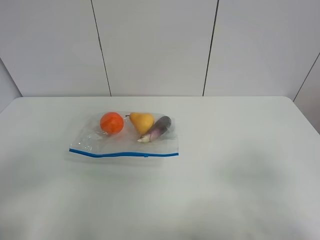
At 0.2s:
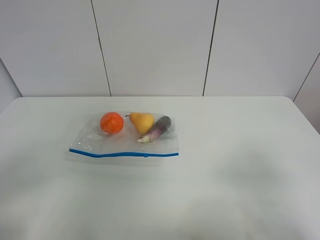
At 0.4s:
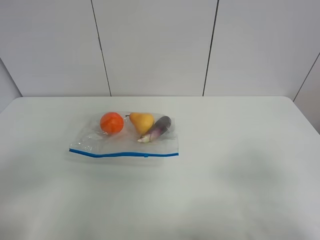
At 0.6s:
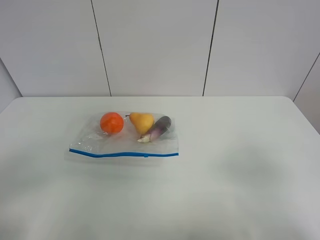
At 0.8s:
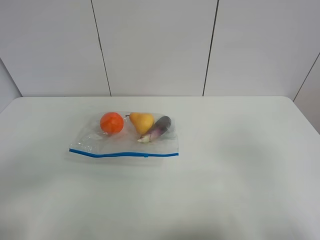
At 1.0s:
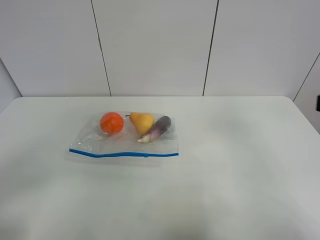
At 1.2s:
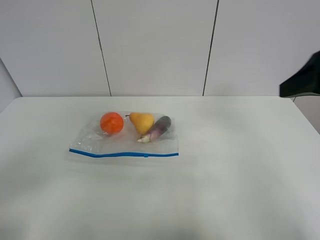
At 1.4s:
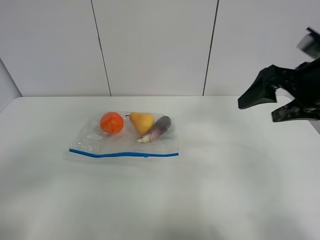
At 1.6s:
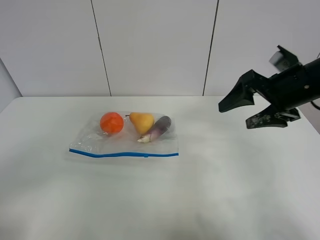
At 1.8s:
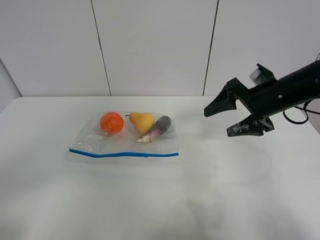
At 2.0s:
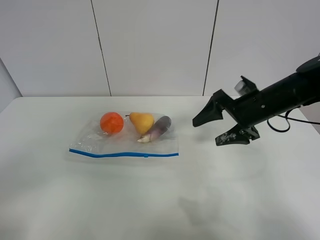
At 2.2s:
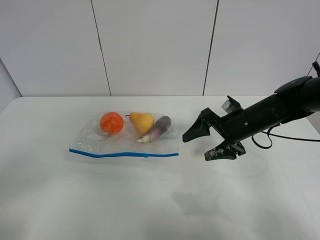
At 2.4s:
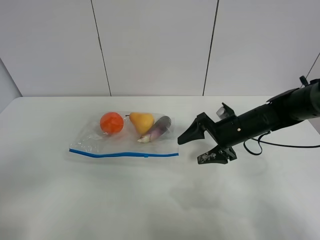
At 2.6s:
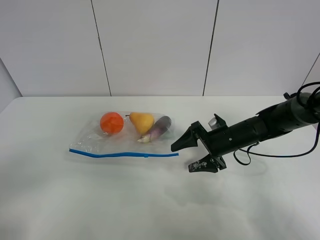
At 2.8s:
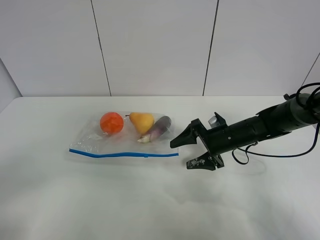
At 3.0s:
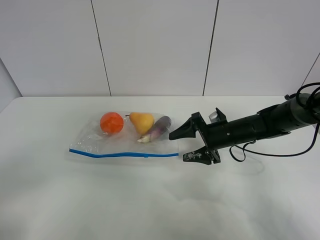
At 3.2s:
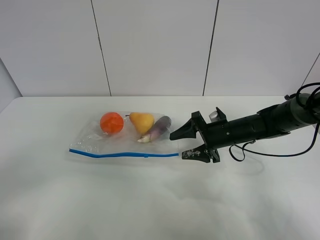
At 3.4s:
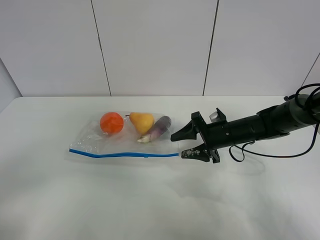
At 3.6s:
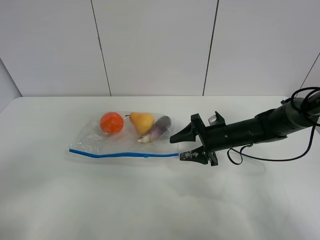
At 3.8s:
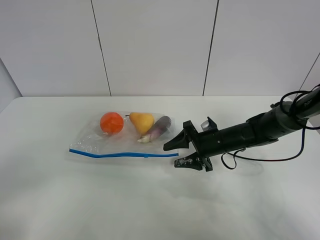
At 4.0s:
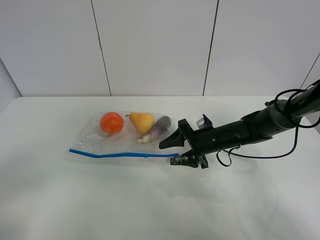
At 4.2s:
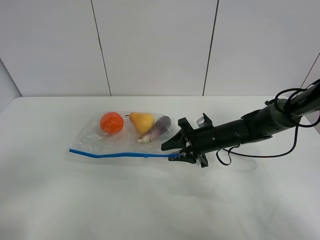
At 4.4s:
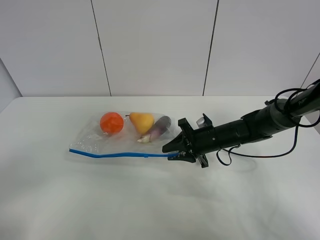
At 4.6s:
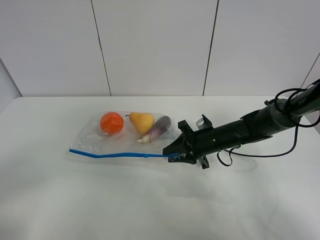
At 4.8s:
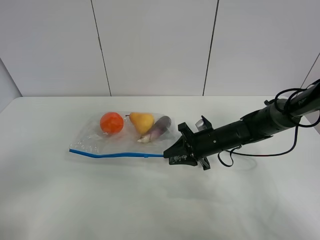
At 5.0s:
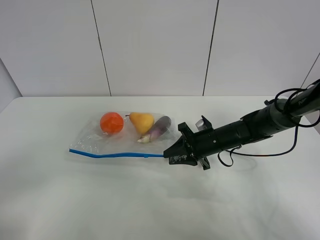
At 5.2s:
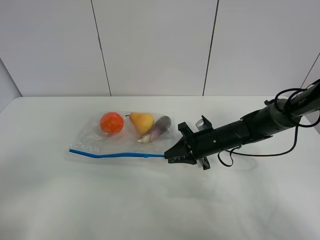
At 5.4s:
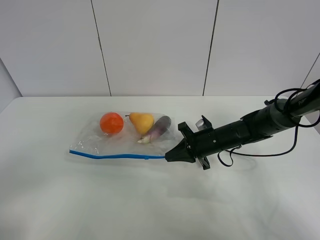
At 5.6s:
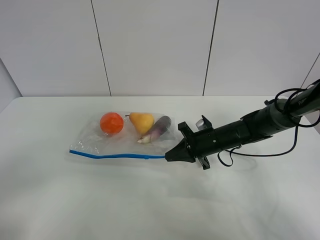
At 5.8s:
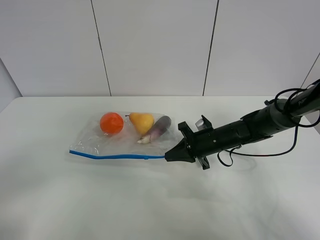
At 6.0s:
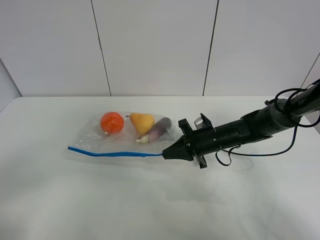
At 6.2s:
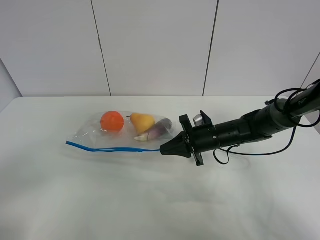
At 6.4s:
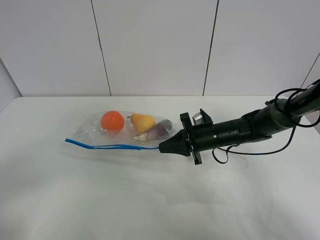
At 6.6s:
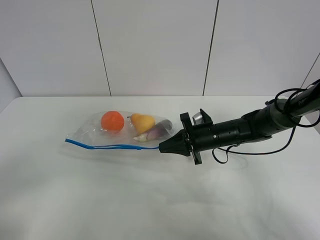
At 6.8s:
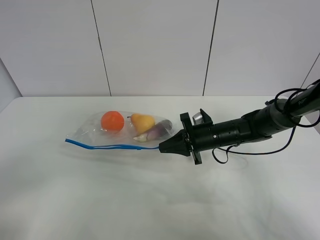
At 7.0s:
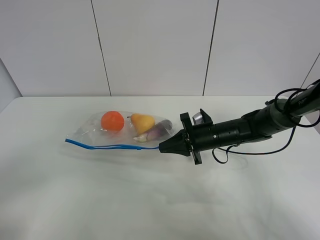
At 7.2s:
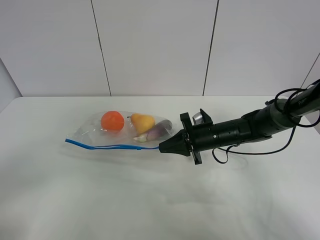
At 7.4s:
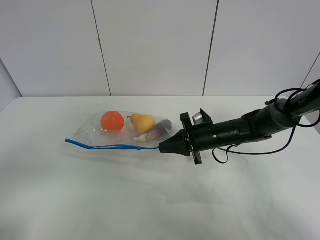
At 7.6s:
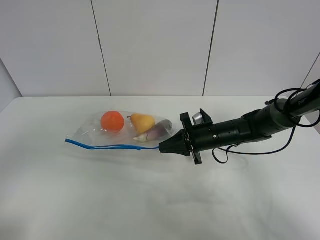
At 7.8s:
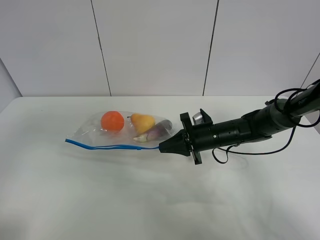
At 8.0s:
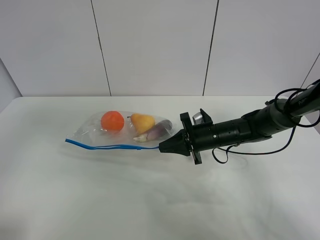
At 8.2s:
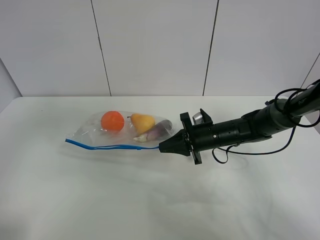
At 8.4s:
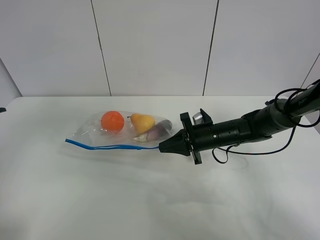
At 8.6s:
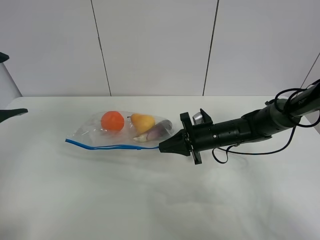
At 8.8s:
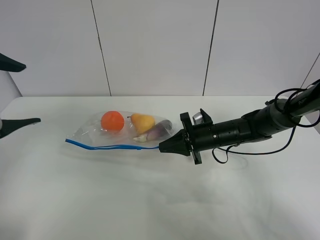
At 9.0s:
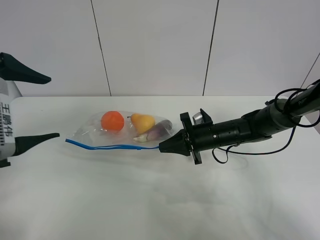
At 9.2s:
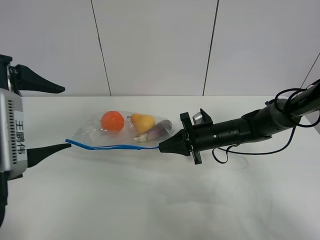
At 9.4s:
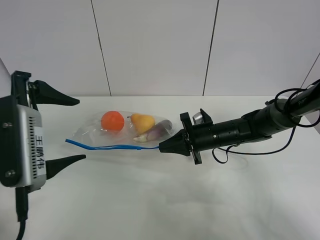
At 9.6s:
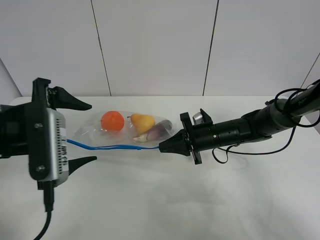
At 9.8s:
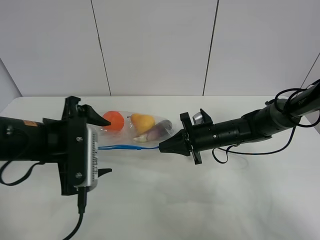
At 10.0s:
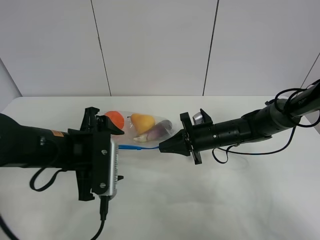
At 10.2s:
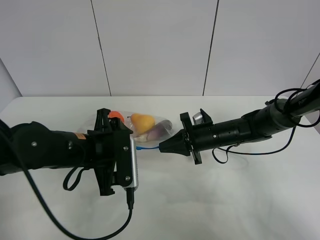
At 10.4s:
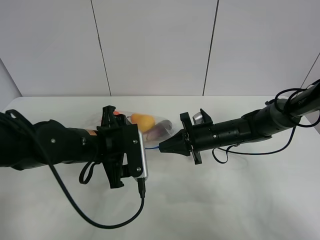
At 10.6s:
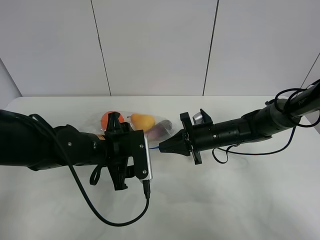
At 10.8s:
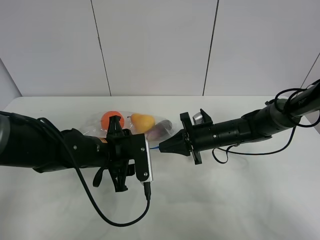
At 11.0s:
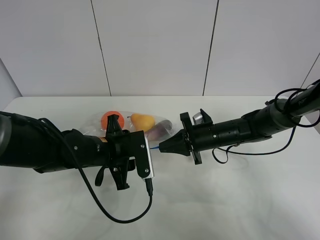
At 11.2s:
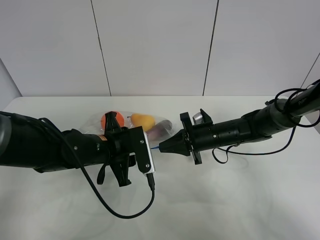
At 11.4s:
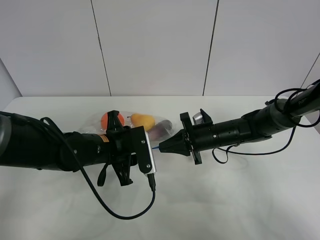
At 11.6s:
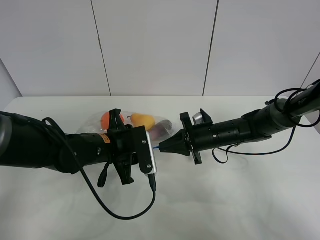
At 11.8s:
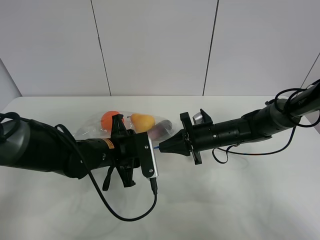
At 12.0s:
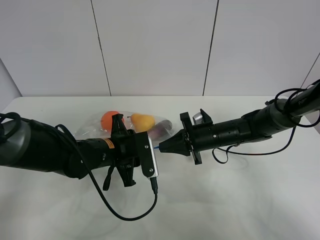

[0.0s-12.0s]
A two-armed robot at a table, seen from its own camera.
Step, 0.0s to 5.2s: Grasp the fruit bag with right gripper.
Step, 5.4s to 6.8s: Lift the fruit bag with your right gripper.
0.0s to 1.6s: The right gripper heads forward, covering approximately 30 cm.
1.6s to 3.0s: The right gripper is displaced downward by approximately 15 cm.
3.0s to 4.4s: The right gripper closes its fingers.
4.4s to 6.0s: The right gripper closes up.
6.0s to 7.6s: The left gripper goes about 10 cm upward and forward.
7.6s to 9.0s: The left gripper moves forward and to the right, some 15 cm.
9.0s to 10.4s: The left gripper travels downward, to the right and forward by about 20 cm.
10.4s to 12.0s: The left gripper closes up.

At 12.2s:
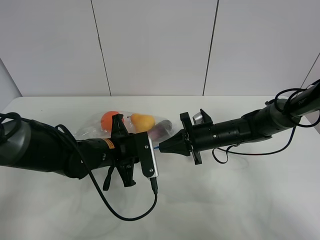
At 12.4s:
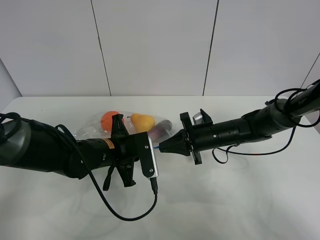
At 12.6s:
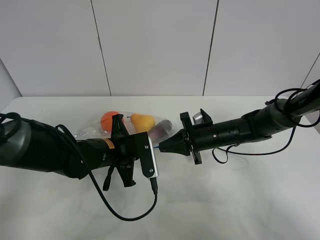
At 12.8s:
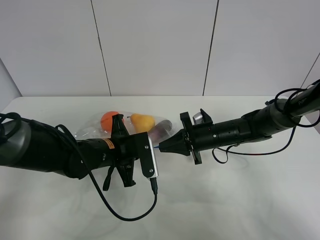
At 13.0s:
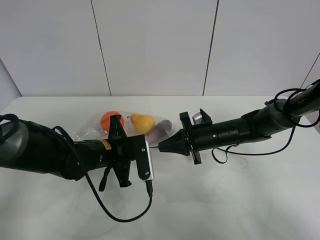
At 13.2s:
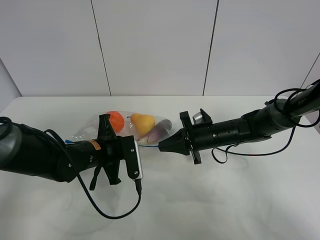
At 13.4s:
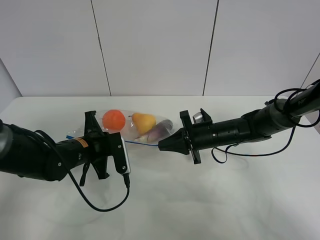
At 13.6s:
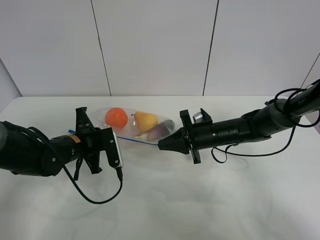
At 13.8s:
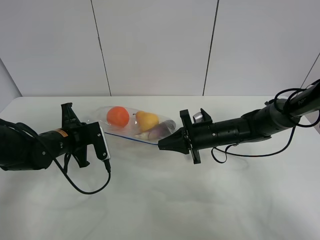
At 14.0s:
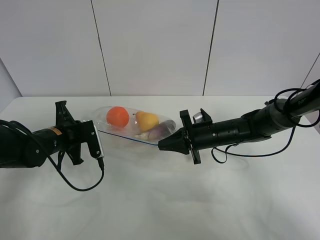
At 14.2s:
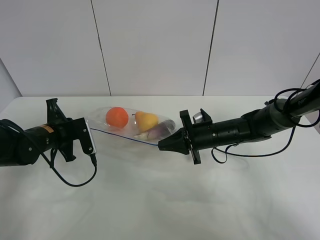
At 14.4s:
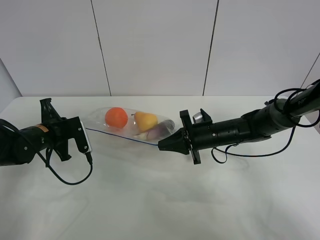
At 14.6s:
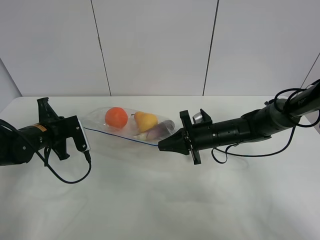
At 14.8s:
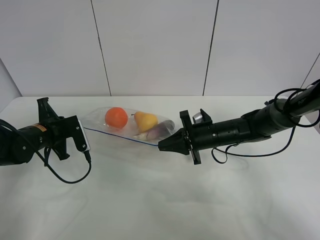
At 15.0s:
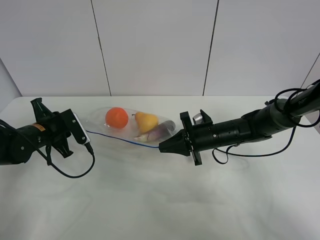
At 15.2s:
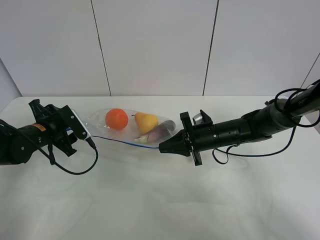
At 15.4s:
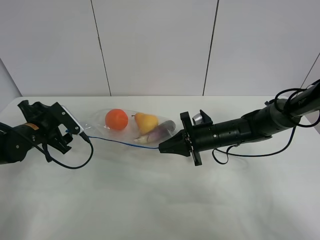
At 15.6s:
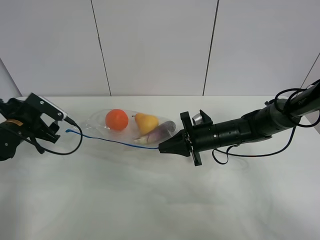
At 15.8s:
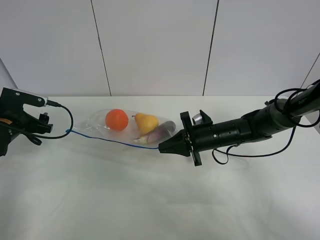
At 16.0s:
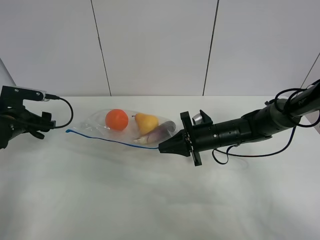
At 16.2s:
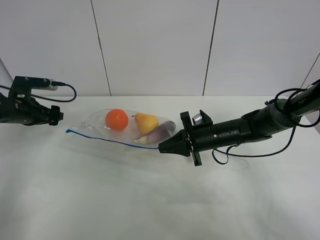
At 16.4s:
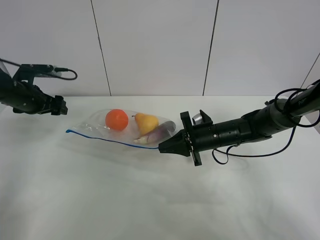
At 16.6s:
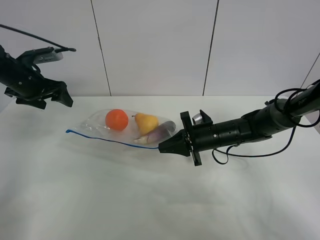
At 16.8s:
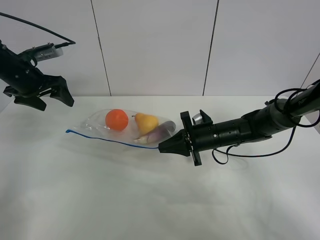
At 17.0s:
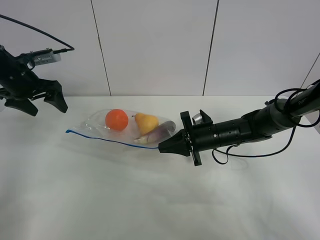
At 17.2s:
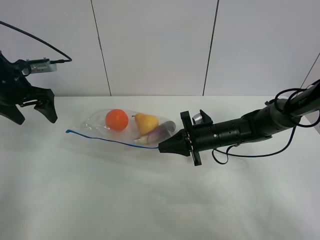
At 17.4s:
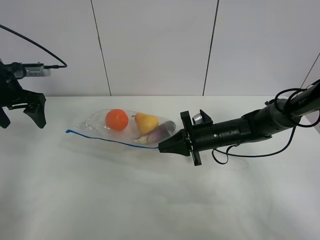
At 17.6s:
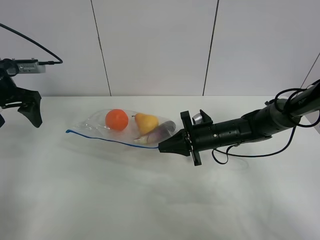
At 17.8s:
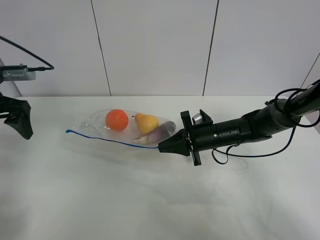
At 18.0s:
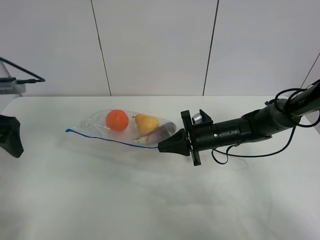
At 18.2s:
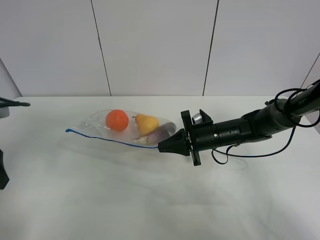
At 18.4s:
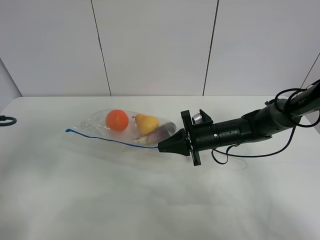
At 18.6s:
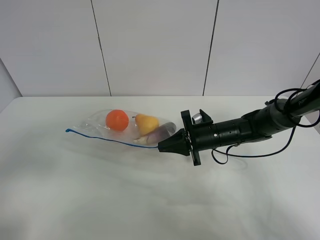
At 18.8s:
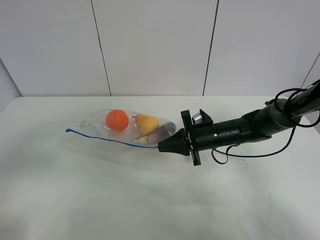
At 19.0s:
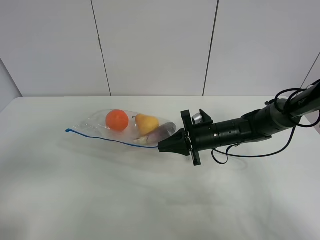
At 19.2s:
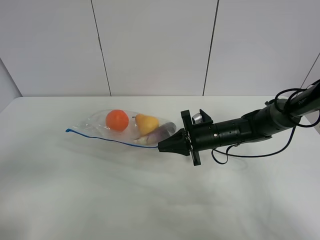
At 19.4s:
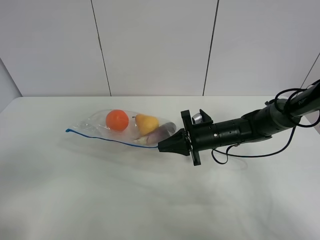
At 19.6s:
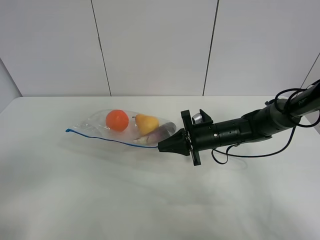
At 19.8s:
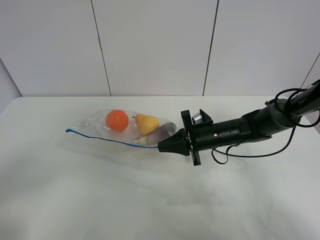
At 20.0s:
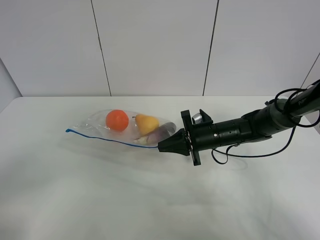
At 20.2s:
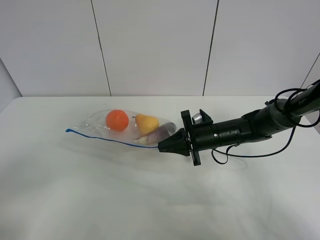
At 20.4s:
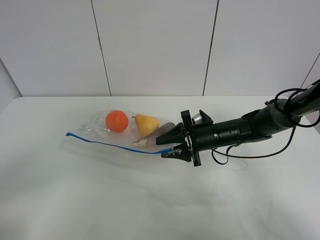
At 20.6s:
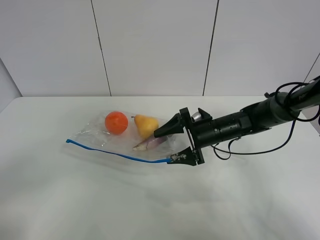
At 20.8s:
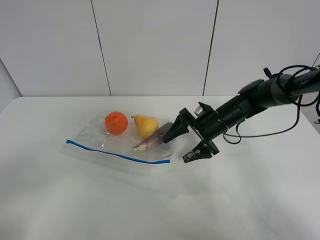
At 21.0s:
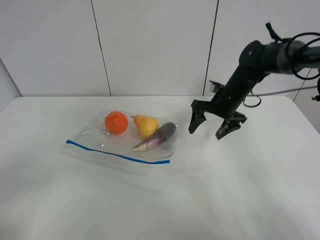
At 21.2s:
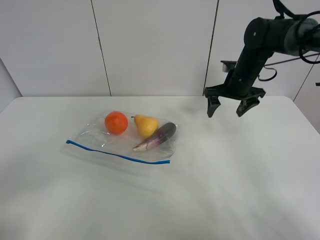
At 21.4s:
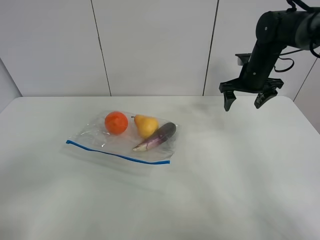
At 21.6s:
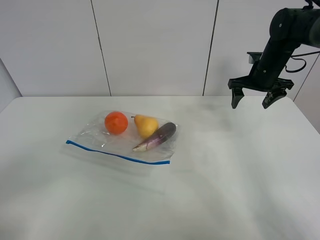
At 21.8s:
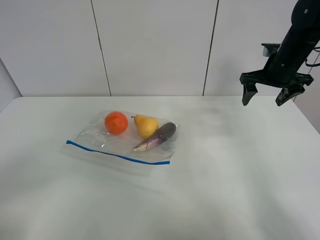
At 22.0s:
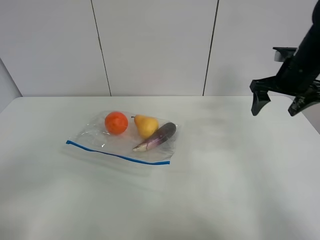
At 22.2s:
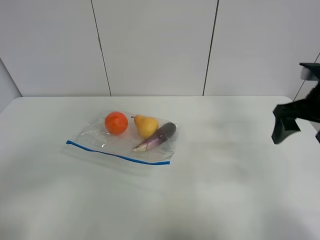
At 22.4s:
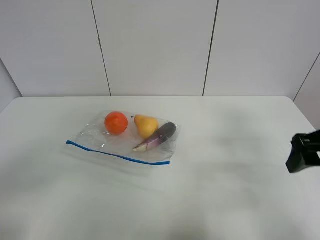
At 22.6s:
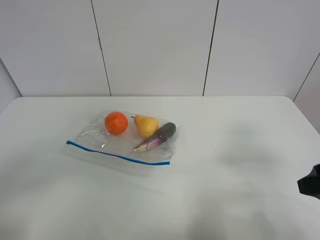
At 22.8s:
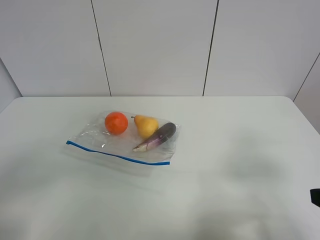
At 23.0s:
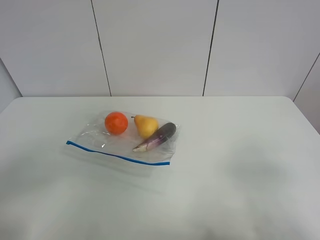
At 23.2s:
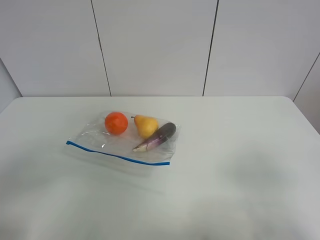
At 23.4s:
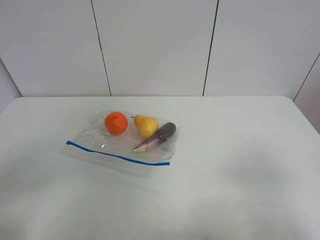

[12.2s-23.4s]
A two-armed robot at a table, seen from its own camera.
Step, 12.2s to 15.2s: Pull the fruit bag with left gripper.
12.2s to 13.8s: The left gripper goes roughly 15 cm to the left.
13.8s to 15.4s: The left gripper moves to the left, about 10 cm, and opens.
15.4s to 17.0s: The left gripper shifts roughly 15 cm upward and forward.
17.0s to 18.6s: The left gripper is displaced backward by some 30 cm.
20.2s to 21.8s: The right gripper goes some 20 cm upward and to the right, and opens its fingers.
21.8s to 23.4s: The right gripper shifts roughly 40 cm backward.
